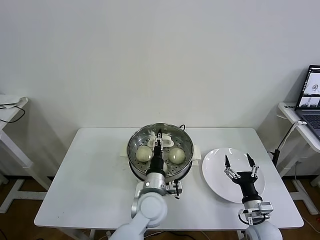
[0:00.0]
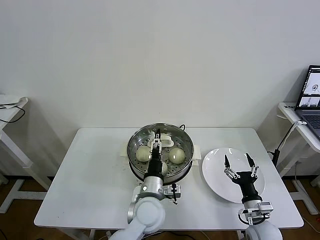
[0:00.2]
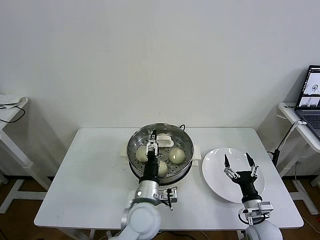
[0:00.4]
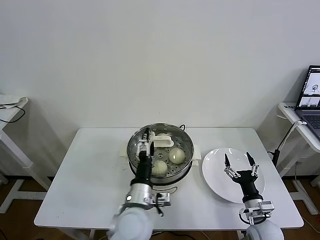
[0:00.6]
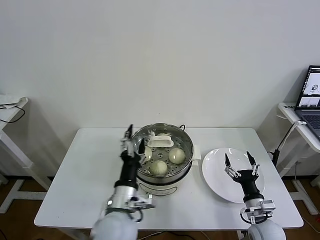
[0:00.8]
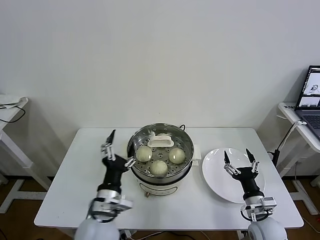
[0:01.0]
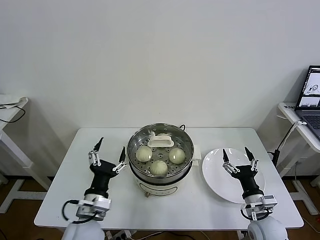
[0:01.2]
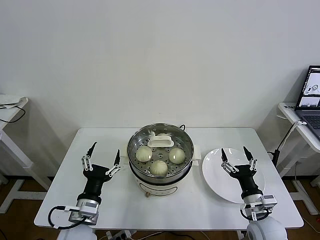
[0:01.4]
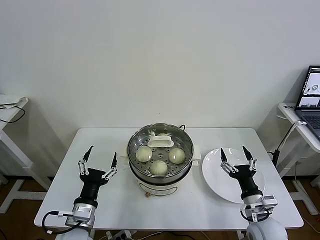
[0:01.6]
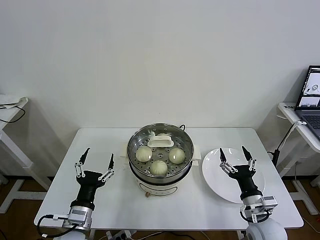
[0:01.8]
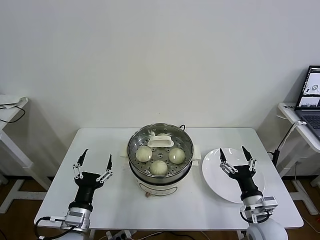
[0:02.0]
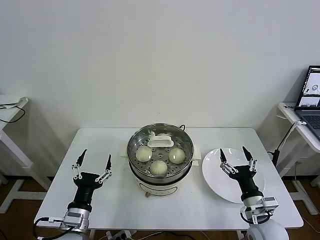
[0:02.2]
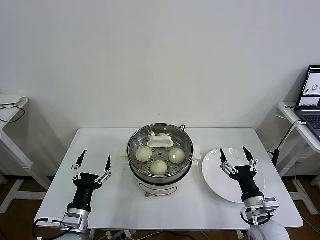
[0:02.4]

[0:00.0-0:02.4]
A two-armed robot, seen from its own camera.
Task of the whole recording: take steamed baozi put them in steamer then cover it.
0:00.0 to 0:01.2: The left gripper is displaced to the left and backward by approximately 20 cm, and opens its fingers.
0:01.2 to 0:02.4: The left gripper moves to the left, some 5 cm.
